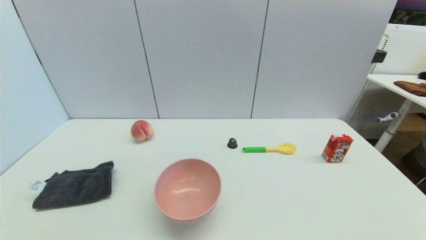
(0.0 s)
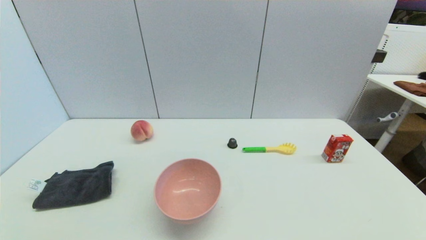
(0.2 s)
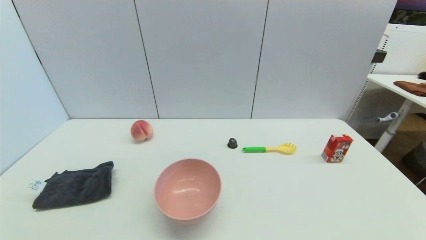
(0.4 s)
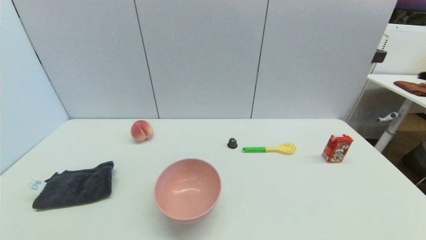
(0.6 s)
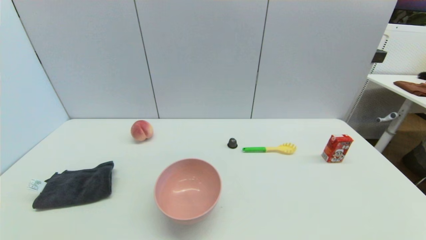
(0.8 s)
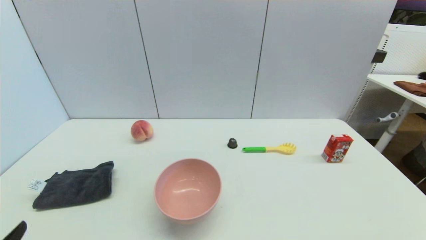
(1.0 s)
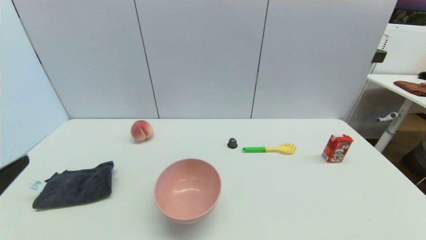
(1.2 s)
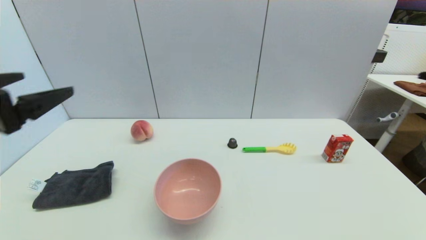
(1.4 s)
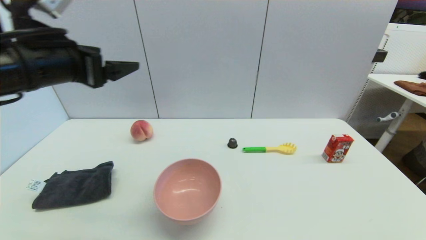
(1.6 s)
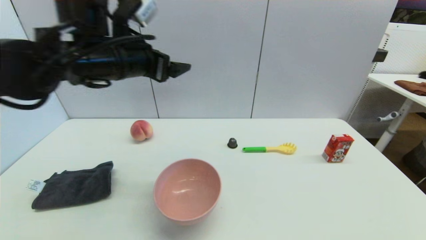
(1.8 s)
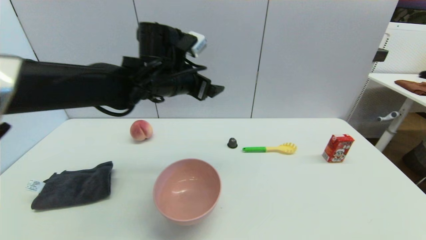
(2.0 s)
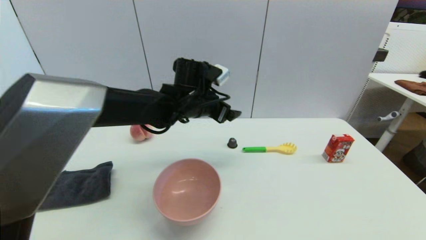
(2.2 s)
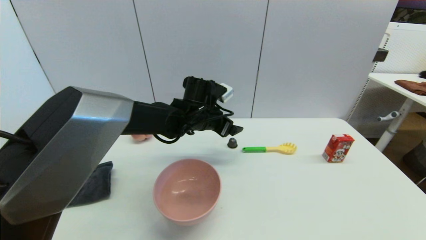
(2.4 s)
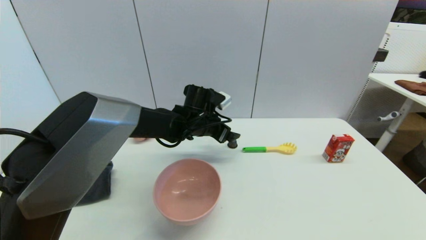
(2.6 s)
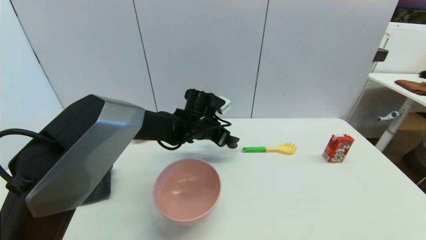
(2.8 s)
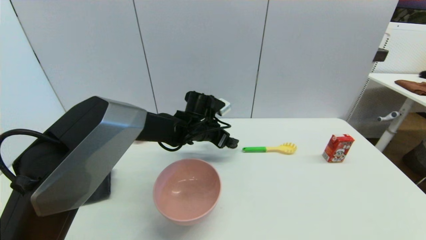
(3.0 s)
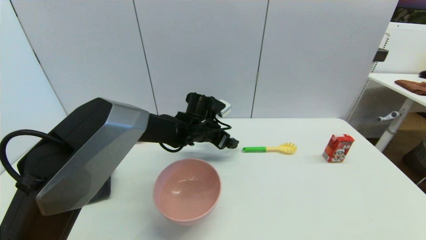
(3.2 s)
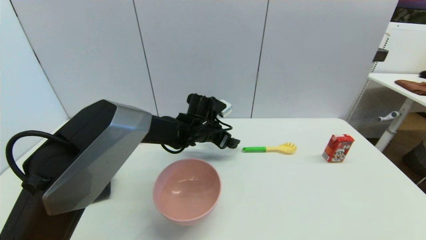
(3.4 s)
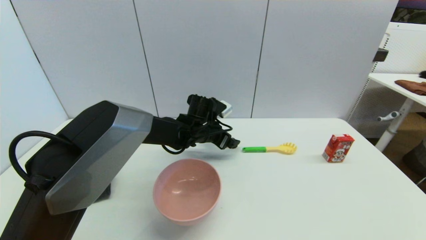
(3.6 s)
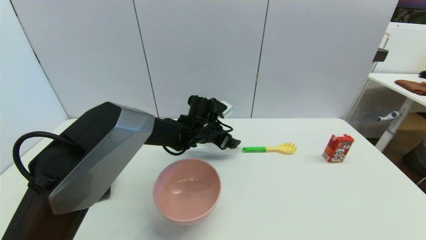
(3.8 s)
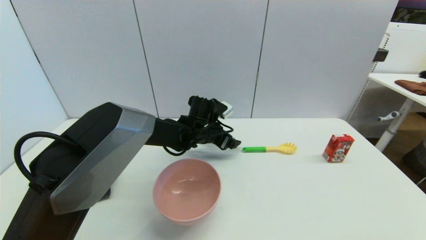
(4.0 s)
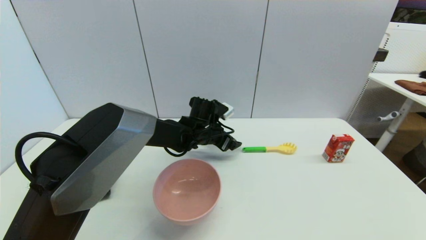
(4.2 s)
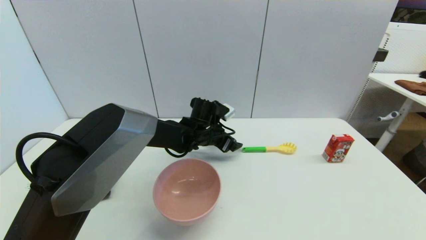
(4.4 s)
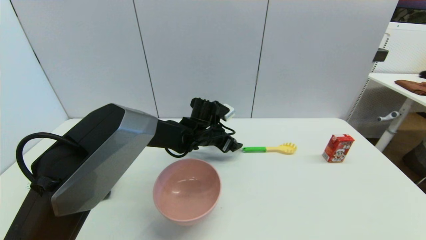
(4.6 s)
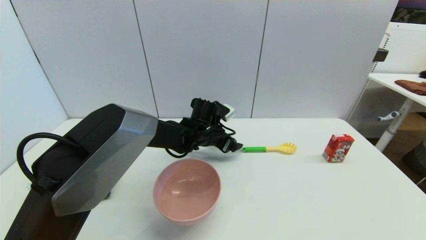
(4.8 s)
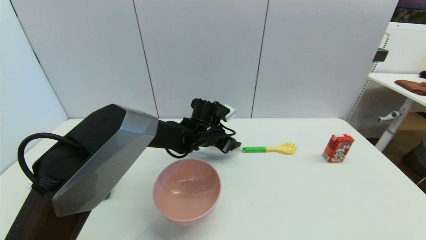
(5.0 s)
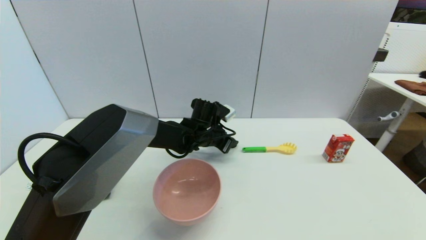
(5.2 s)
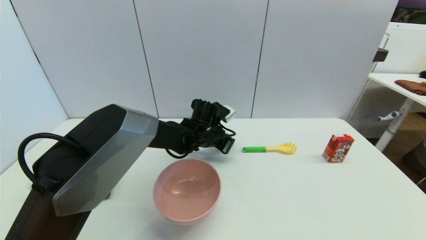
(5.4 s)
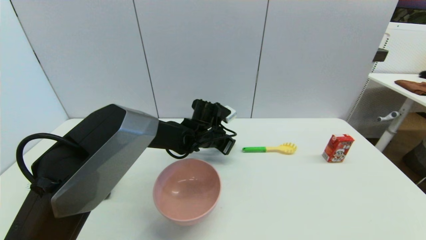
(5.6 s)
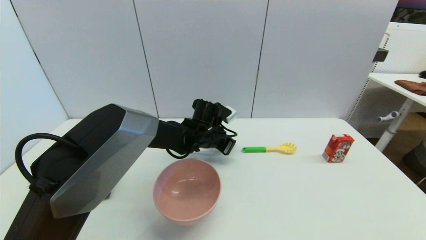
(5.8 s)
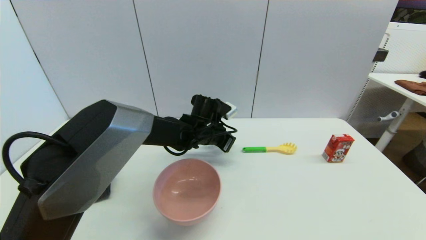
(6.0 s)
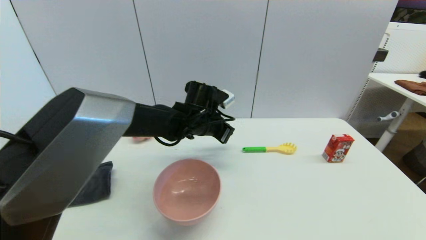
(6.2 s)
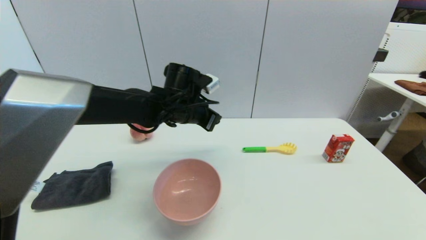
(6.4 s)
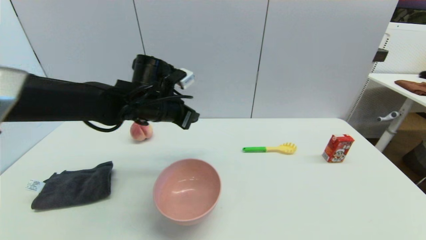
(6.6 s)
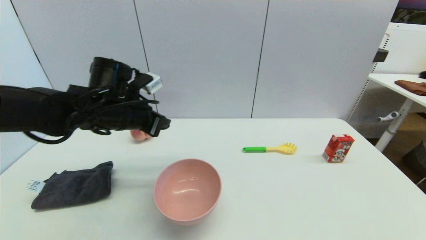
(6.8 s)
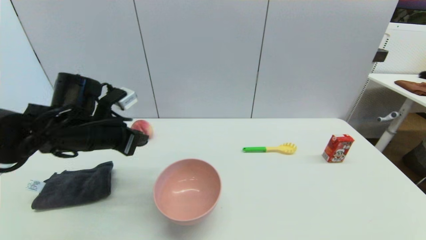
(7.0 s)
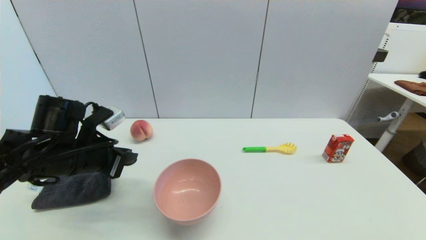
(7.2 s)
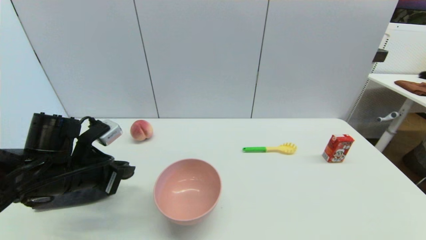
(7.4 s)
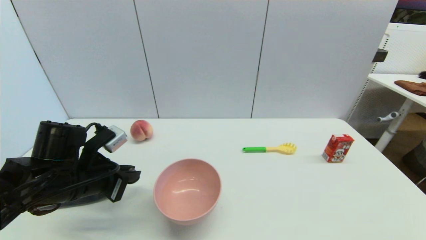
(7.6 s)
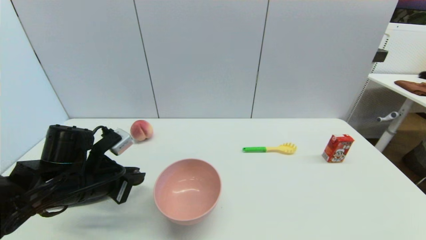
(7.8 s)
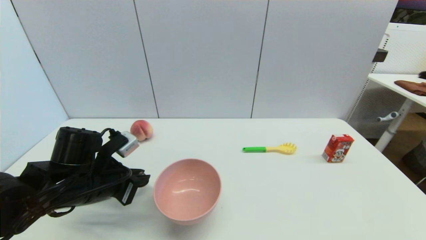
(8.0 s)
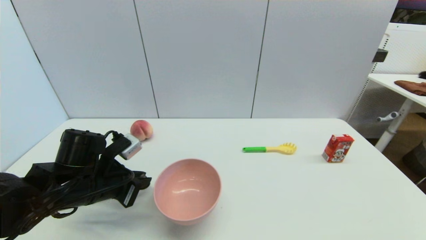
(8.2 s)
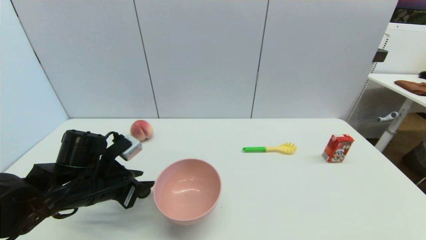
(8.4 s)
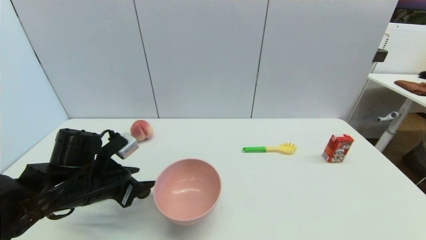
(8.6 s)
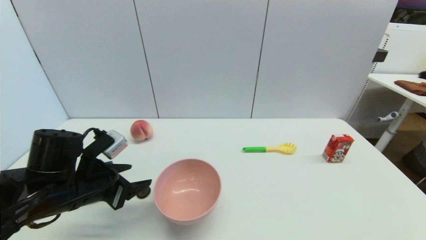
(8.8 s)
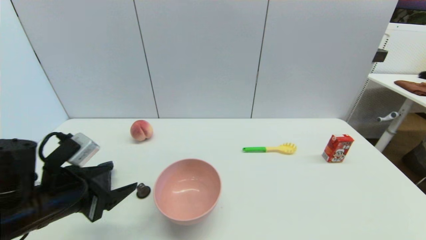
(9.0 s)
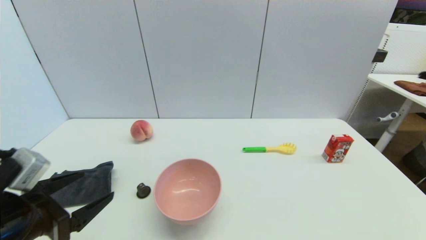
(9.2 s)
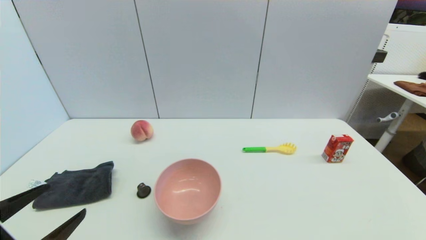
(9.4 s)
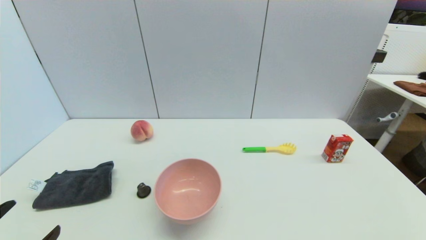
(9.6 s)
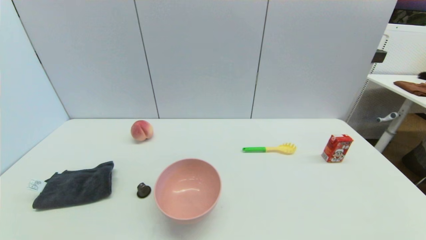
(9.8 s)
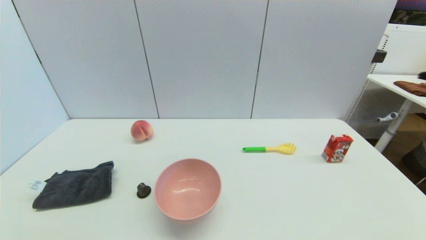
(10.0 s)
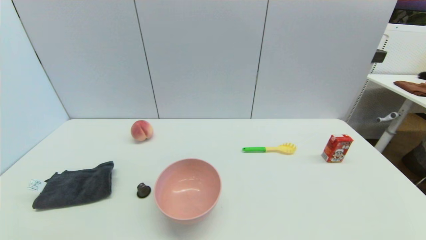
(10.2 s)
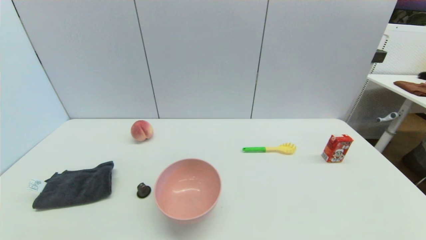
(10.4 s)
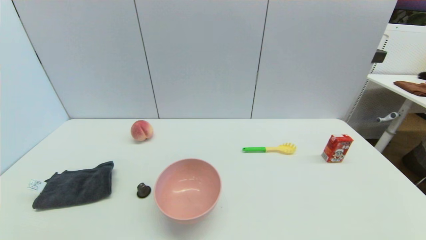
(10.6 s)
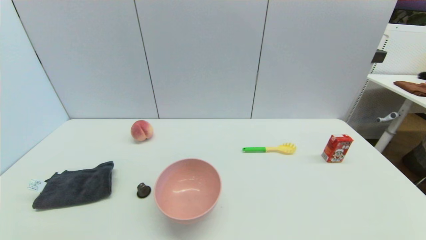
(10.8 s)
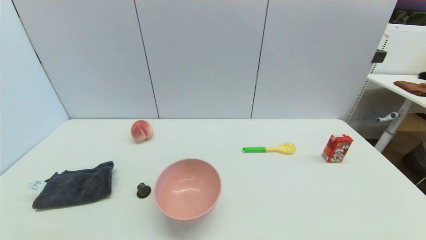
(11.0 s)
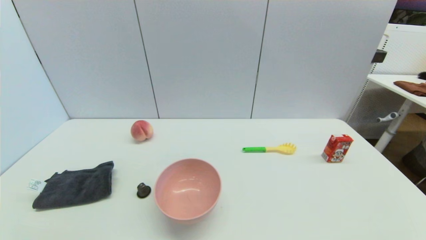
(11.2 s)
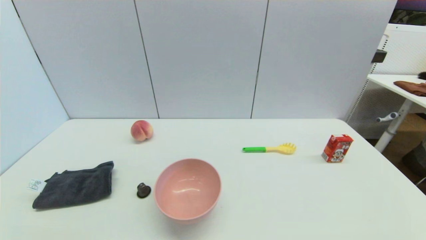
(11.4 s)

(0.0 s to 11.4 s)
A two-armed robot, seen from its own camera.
Step, 1.0 s - 5.4 s: Grasp the coffee capsule with left gripper.
Step, 5.8 s - 8.4 s: Place the coffee capsule on the table with left gripper.
0.0 s - 1.4 s: The left gripper goes approximately 30 cm upward and forward.
1.4 s - 2.8 s: The left gripper goes some 40 cm to the right, forward and downward.
2.8 s - 4.2 s: There are only small adjustments of the grippers.
4.2 s - 5.6 s: The left gripper closes.
5.6 s - 7.2 s: The left gripper is displaced to the left and backward by roughly 30 cm.
7.2 s - 8.6 s: The left gripper changes place by approximately 5 cm, and opens.
8.6 s - 10.0 s: The left gripper is displaced backward by roughly 25 cm, and opens its fingers.
